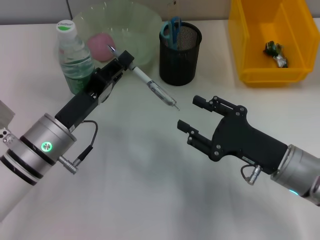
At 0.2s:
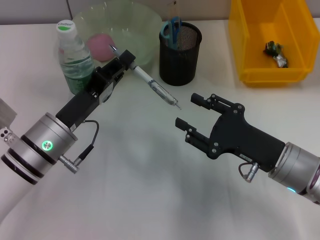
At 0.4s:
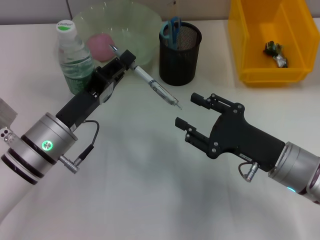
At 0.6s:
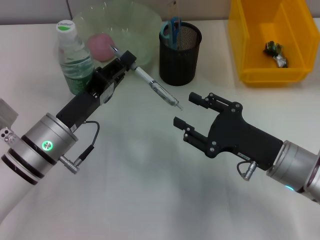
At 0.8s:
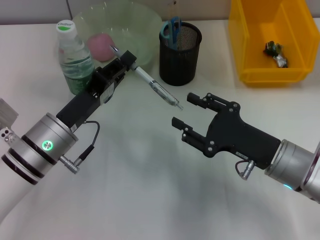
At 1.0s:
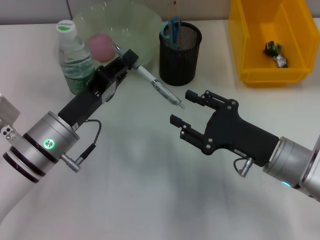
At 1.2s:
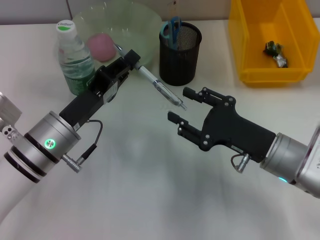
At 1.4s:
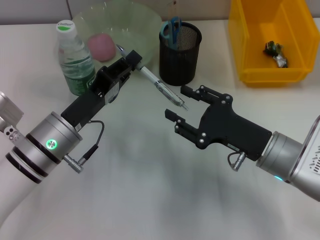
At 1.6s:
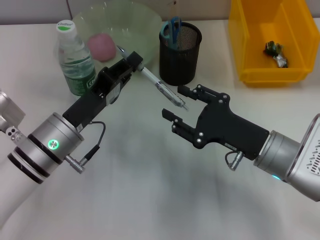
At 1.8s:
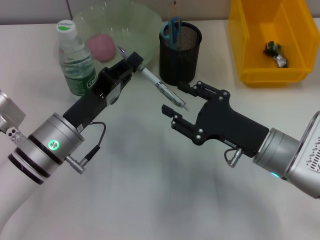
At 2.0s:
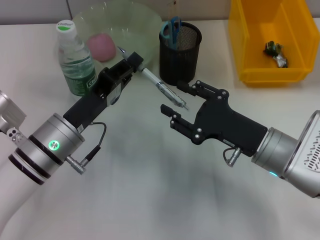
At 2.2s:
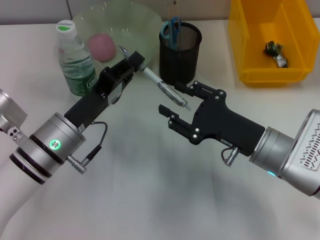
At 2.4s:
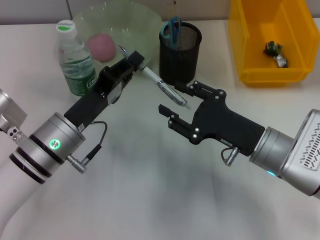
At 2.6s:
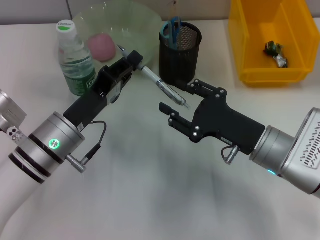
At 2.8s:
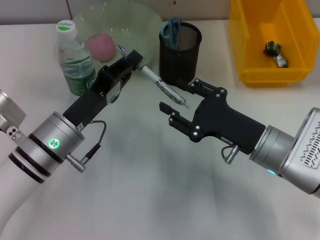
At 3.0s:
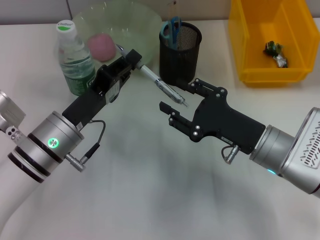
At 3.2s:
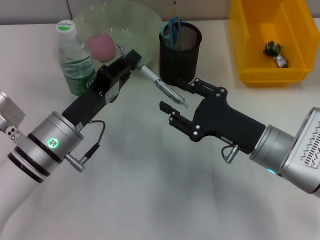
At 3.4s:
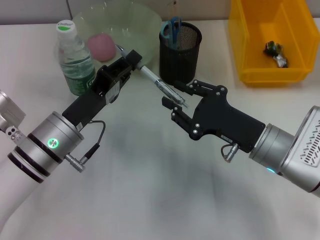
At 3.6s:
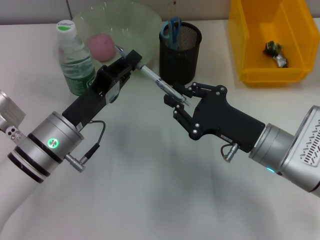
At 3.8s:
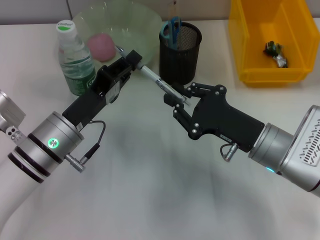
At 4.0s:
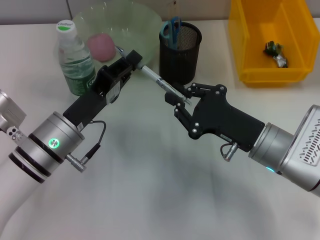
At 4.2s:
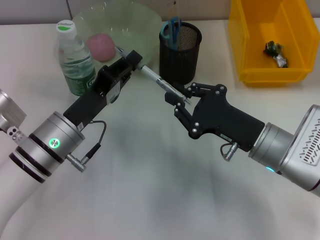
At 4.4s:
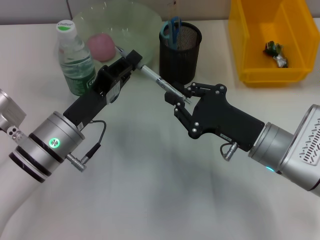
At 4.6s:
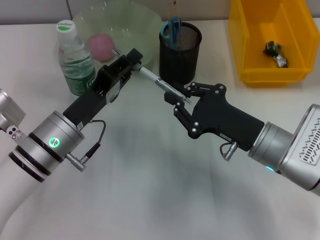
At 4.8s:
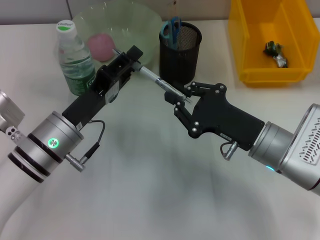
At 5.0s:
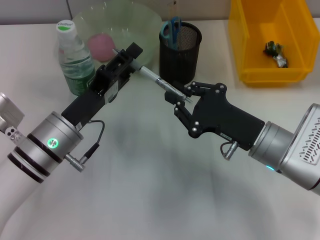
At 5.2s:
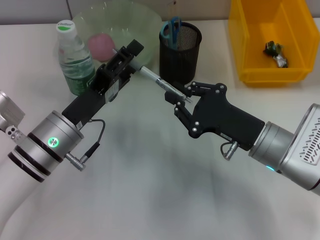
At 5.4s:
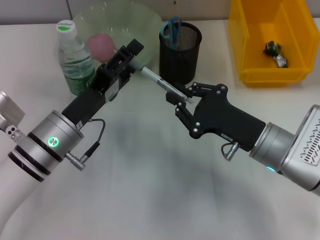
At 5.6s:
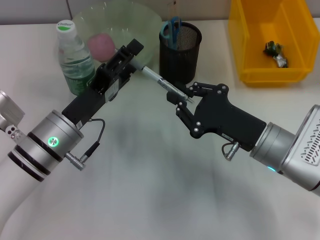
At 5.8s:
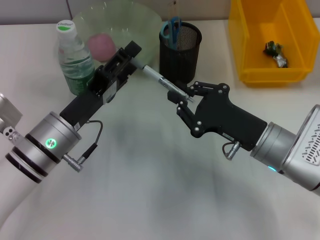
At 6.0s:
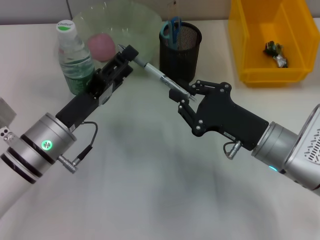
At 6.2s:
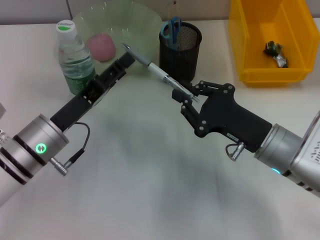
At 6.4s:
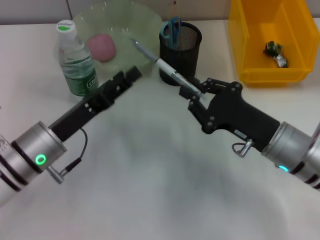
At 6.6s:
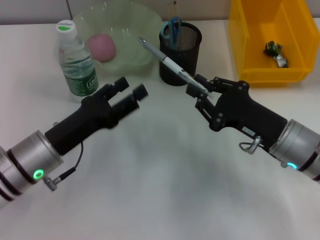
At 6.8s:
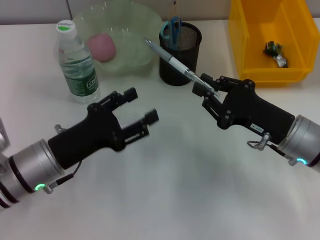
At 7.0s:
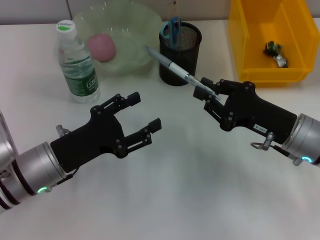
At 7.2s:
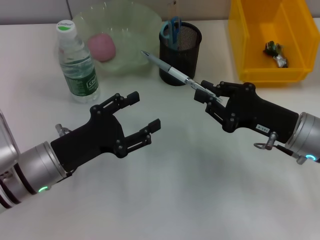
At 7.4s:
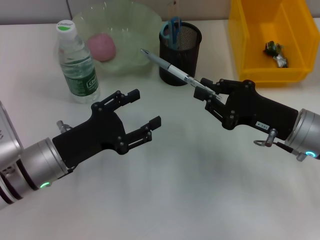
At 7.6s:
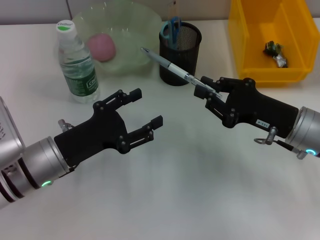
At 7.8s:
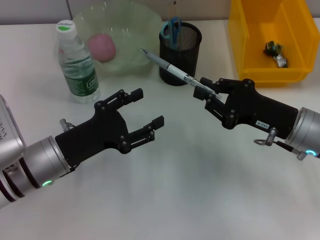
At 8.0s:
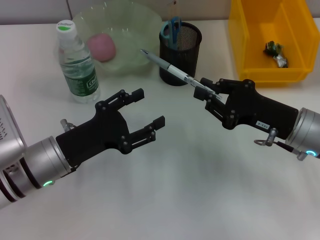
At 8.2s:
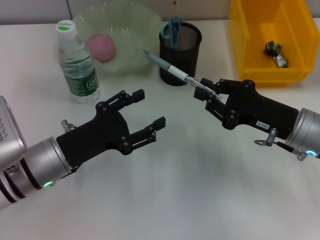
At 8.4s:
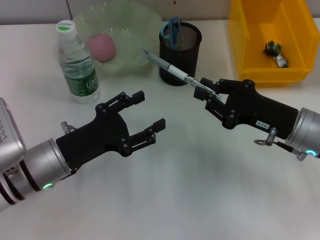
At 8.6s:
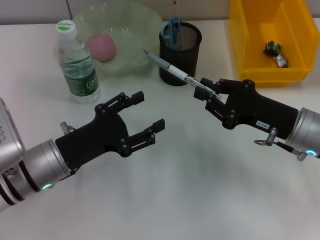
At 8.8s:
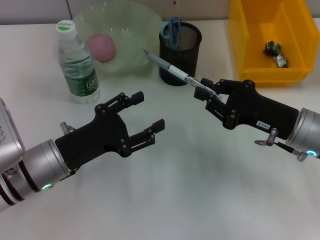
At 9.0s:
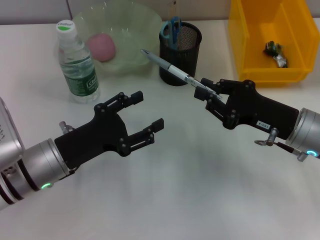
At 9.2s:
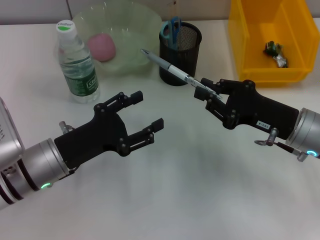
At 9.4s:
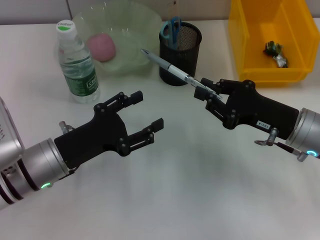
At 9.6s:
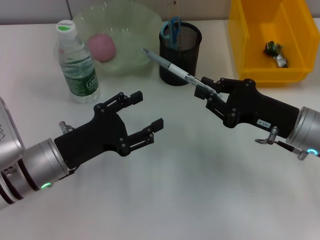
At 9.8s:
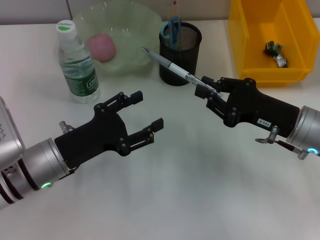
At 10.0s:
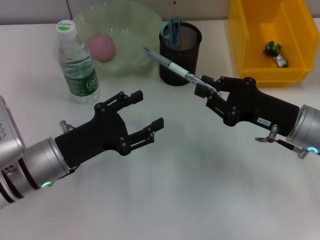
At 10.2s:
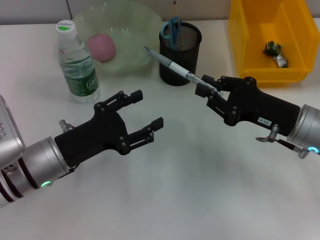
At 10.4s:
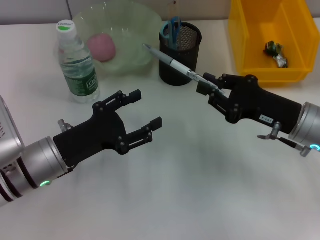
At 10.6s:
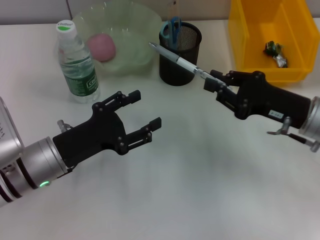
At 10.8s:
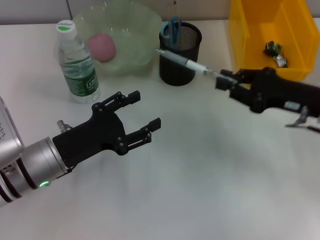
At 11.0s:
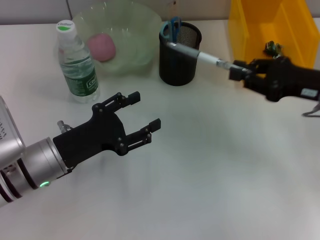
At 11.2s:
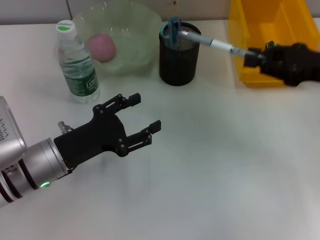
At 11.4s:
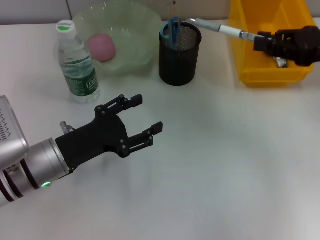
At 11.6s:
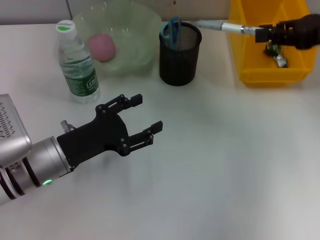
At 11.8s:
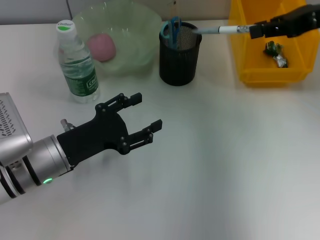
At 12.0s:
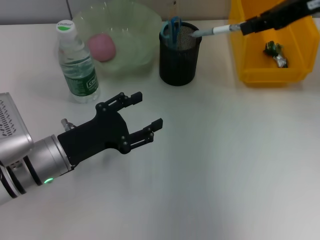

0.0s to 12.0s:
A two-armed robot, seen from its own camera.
Step, 0.0s to 5.8s: Pass the gray spring-action pen from the left hand to the right hand.
0.0s to 1.6s: The grippers stay close to where they were, moving slightly.
1.6s to 3.0s: Both grippers stay about where they are.
3.0s to 4.4s: The right gripper closes up.
4.4s to 6.0s: The left gripper opens its fingers.
6.0s to 7.6s: The right gripper shifts by some 5 cm.
7.6s to 10.4s: Both grippers stay about where they are.
10.4s to 12.0s: The right gripper heads upward and forward, covering about 20 cm.

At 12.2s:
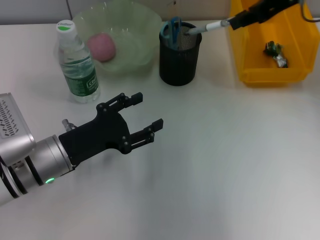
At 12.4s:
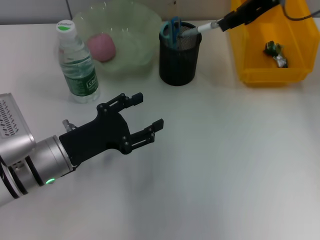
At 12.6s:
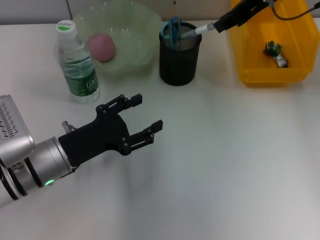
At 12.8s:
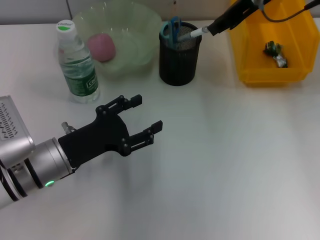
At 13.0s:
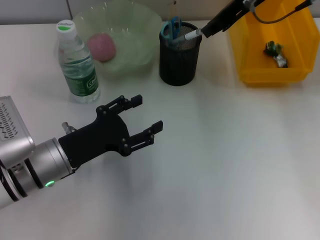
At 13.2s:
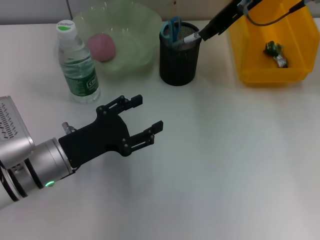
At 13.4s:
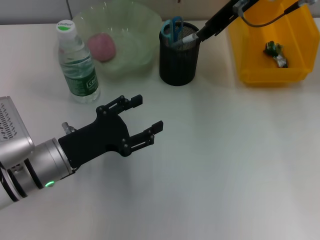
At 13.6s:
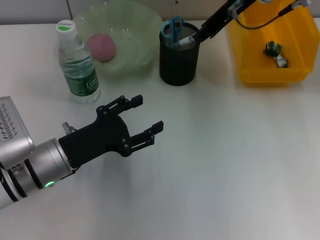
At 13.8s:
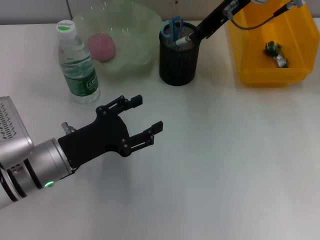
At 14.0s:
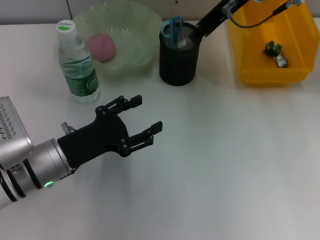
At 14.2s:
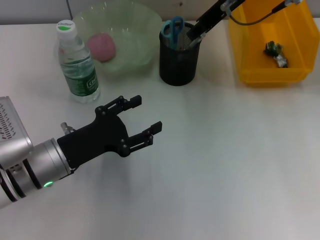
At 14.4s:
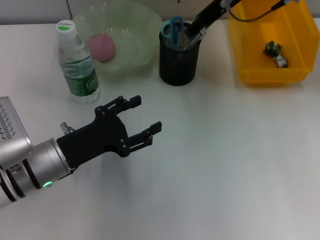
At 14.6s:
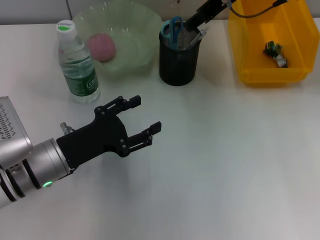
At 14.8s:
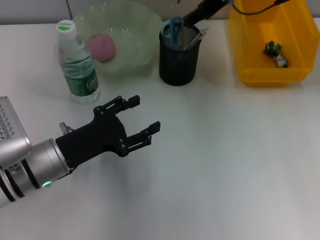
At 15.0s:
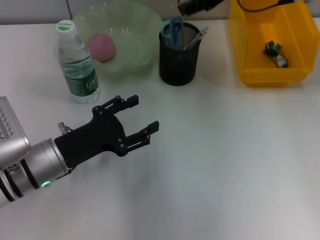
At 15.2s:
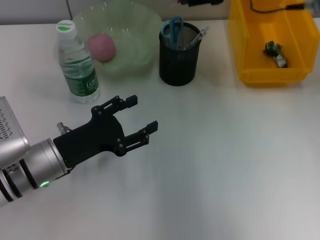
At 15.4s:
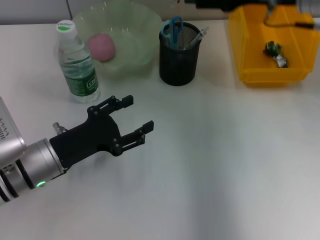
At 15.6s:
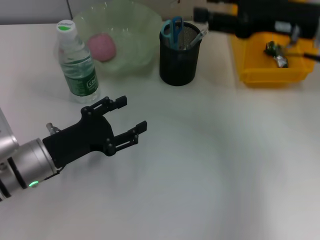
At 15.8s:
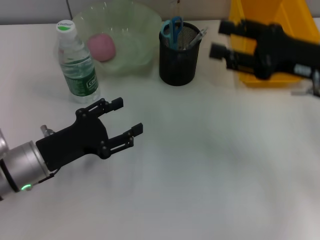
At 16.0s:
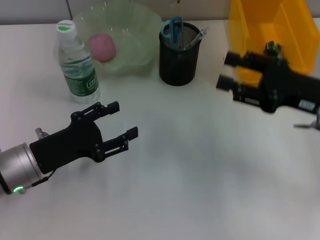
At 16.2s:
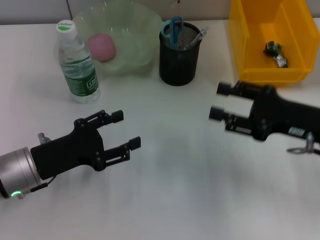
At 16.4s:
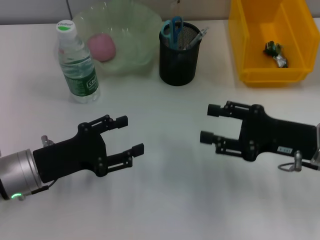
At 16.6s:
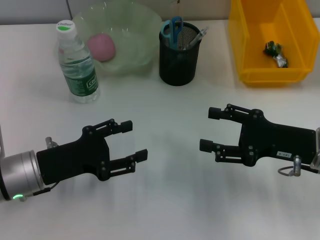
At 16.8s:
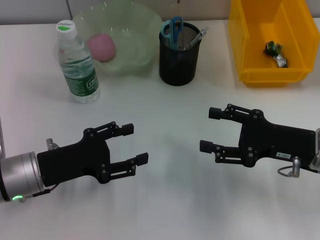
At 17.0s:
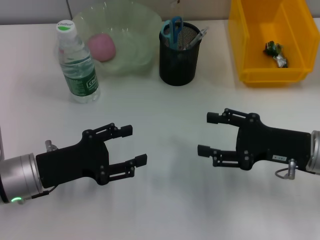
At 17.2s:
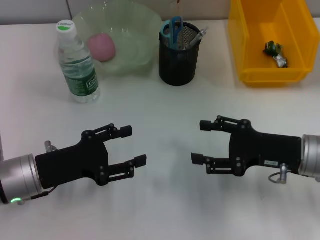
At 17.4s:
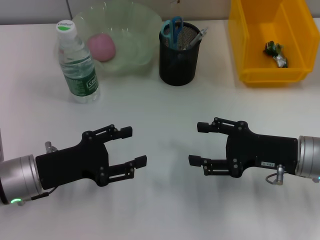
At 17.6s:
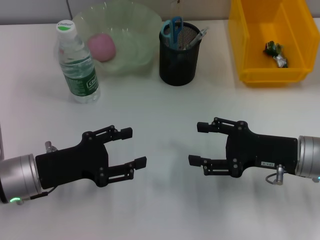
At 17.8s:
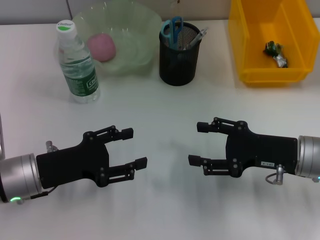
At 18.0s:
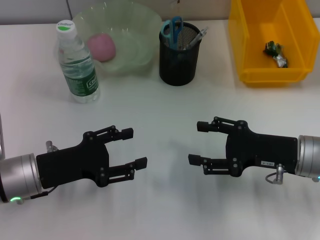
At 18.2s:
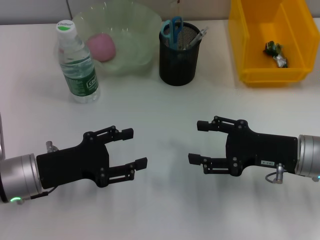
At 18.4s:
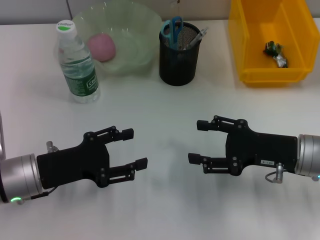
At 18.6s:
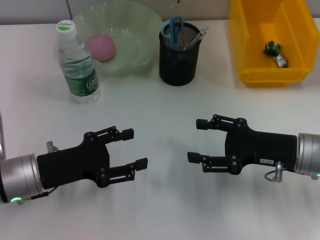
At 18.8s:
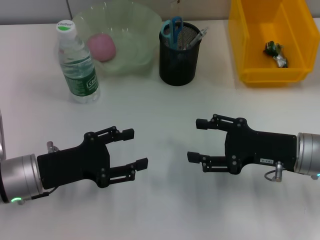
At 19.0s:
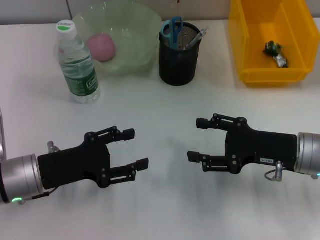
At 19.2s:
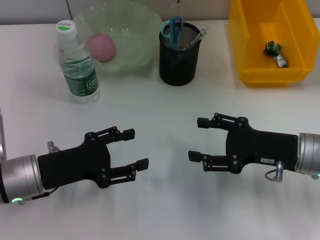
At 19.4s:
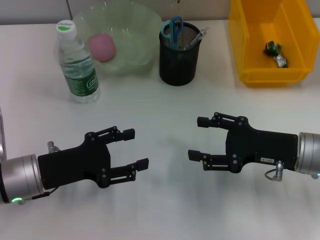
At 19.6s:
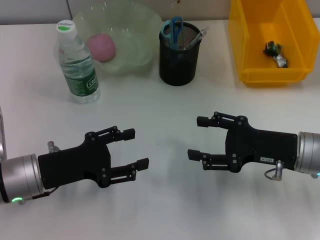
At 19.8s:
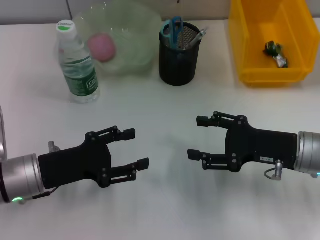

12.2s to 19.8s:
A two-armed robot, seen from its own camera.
Step, 12.2s to 14.4s: Place the gray spring-action pen into the pen holder with the right hand.
12.2s to 13.8s: The right gripper moves to the left, some 10 cm.
13.8s to 15.2s: The right gripper moves to the right, some 5 cm, and opens up.
15.2s to 16.8s: The right gripper goes some 25 cm downward and backward.
16.8s to 18.2s: There are only small adjustments of the grippers.
18.2s to 19.8s: Neither gripper changes place.

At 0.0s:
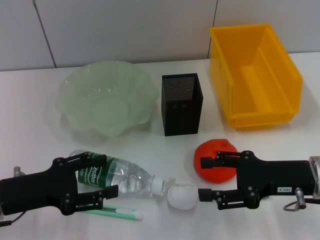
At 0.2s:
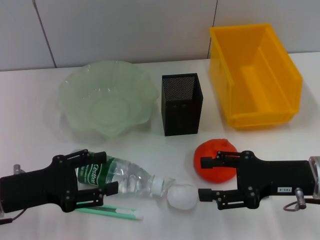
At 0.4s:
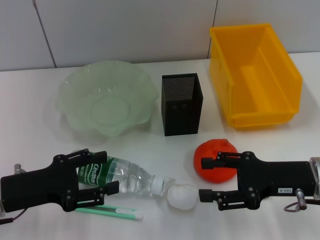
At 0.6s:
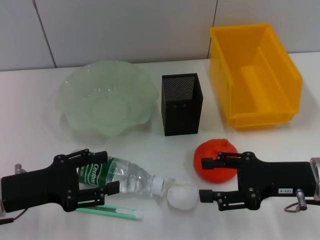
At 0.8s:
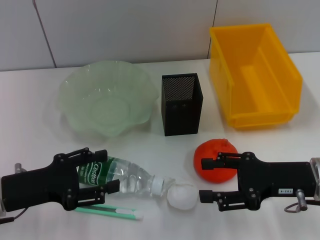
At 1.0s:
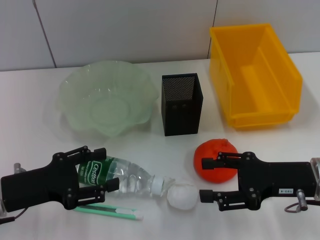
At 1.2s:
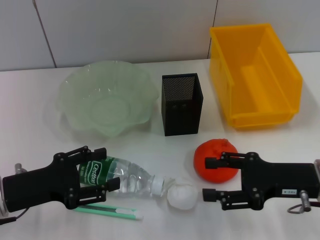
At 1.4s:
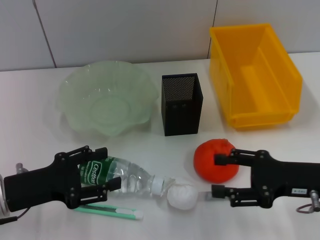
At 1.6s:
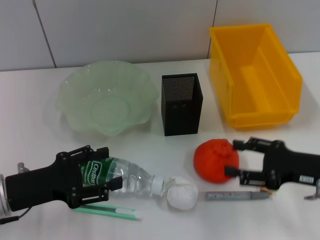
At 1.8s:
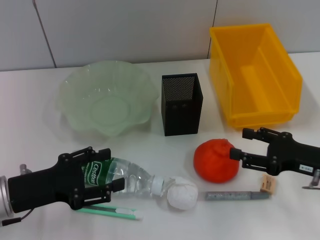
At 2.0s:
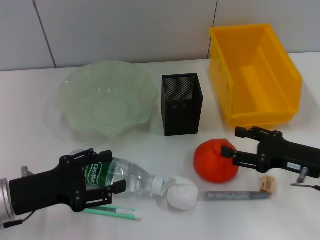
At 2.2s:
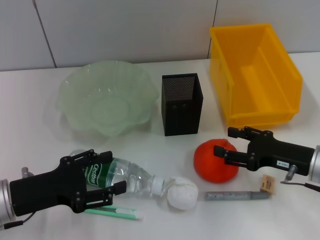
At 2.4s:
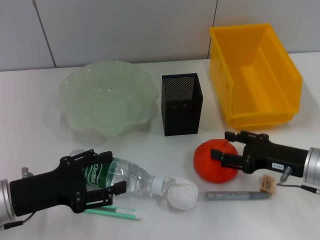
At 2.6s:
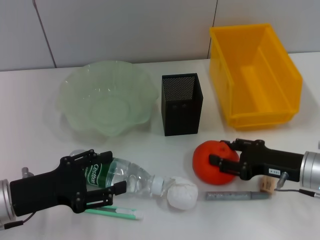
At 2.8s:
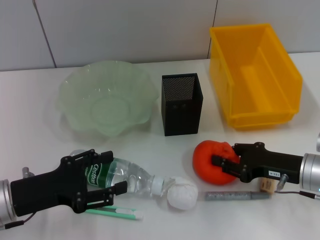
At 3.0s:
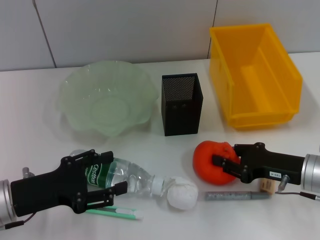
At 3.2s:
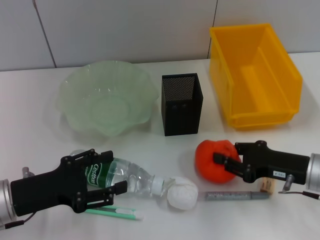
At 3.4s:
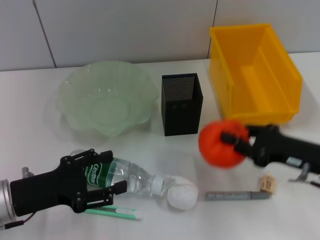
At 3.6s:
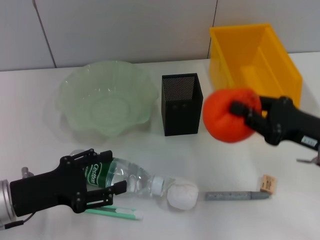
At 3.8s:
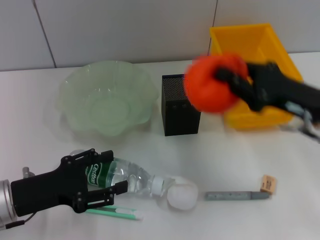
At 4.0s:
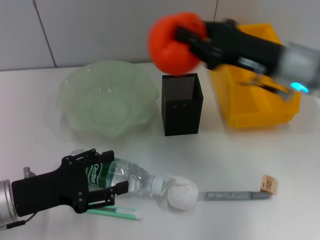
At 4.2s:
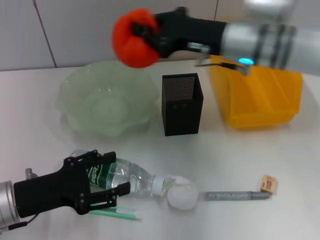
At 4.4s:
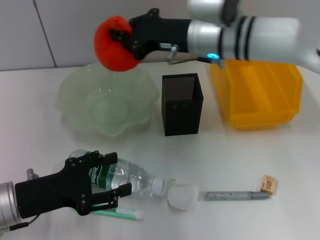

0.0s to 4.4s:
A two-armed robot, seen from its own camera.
Step, 0.0s to 2.8s: Grab the orange with the right hand.
0.0s to 1.4s: There are only small adjustments of the grippers.
1.4s to 3.0s: The right gripper ends up some 5 cm from where it was, and closes.
3.0s to 4.4s: The right gripper moves to the left, forward and upward, some 30 cm, and closes up.
